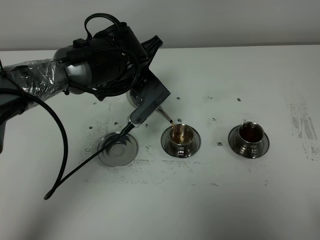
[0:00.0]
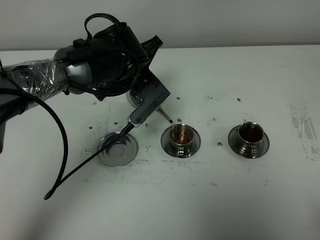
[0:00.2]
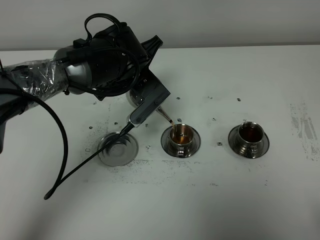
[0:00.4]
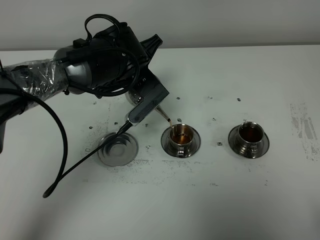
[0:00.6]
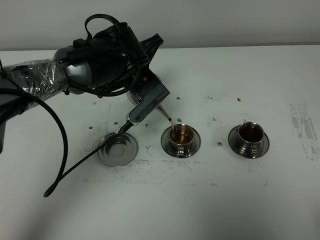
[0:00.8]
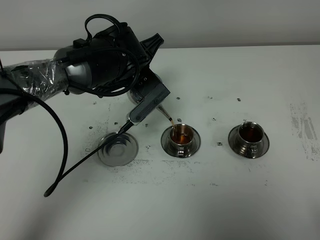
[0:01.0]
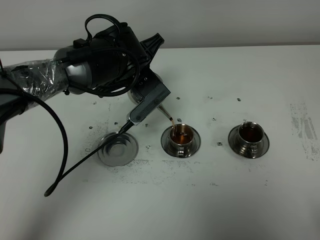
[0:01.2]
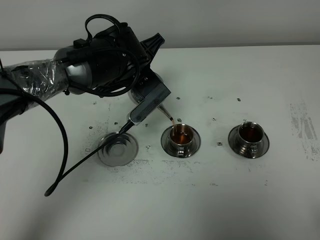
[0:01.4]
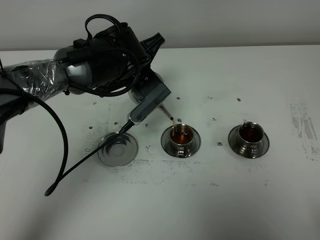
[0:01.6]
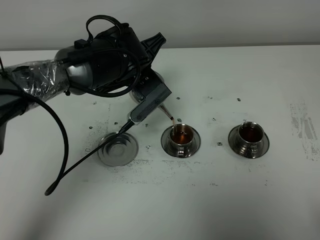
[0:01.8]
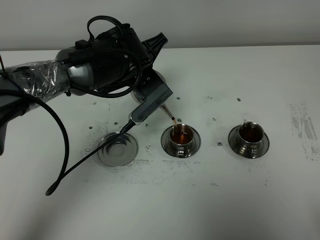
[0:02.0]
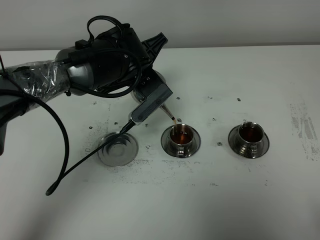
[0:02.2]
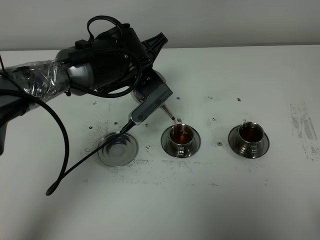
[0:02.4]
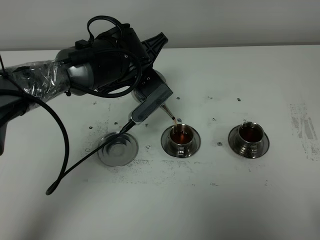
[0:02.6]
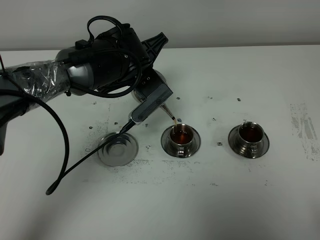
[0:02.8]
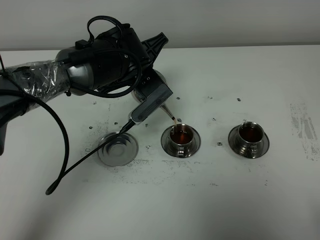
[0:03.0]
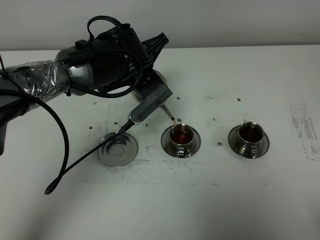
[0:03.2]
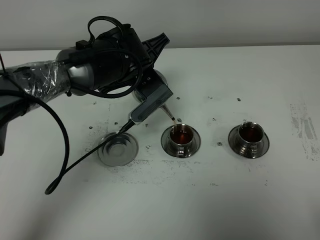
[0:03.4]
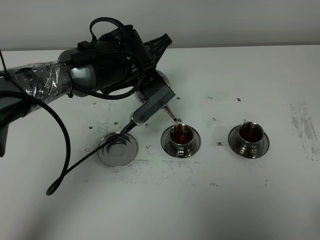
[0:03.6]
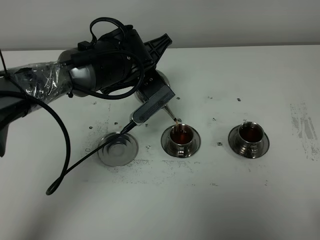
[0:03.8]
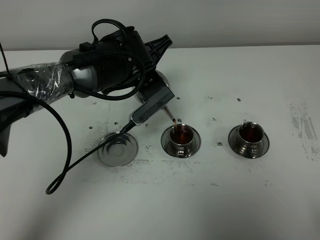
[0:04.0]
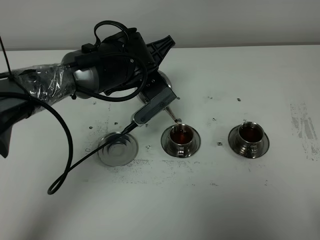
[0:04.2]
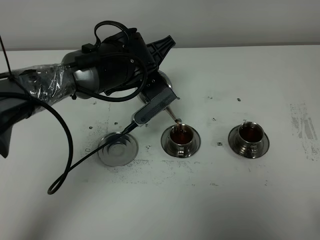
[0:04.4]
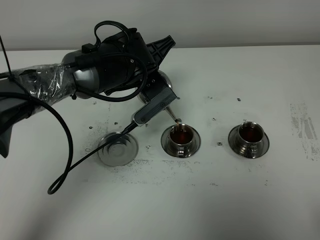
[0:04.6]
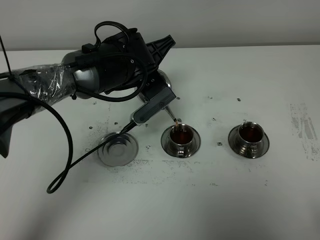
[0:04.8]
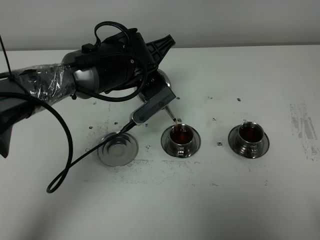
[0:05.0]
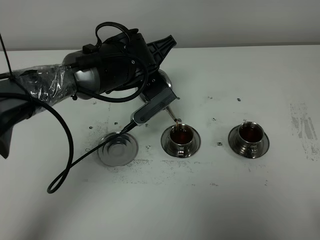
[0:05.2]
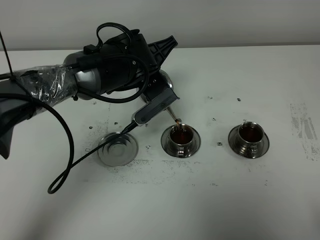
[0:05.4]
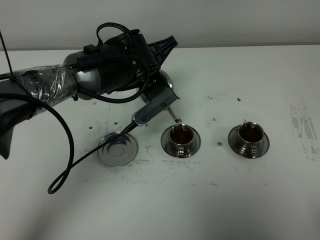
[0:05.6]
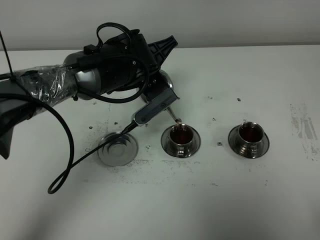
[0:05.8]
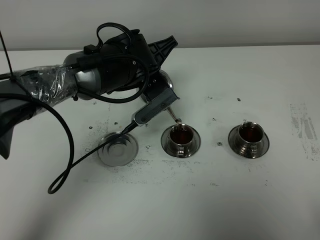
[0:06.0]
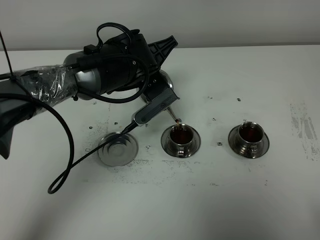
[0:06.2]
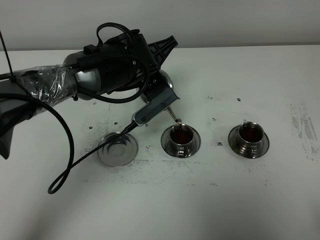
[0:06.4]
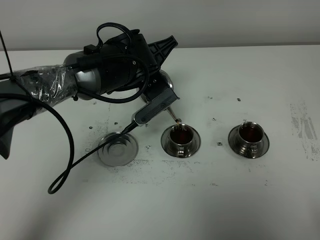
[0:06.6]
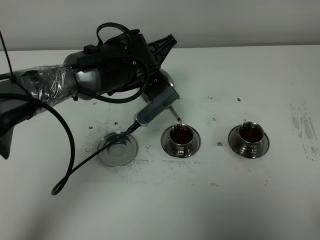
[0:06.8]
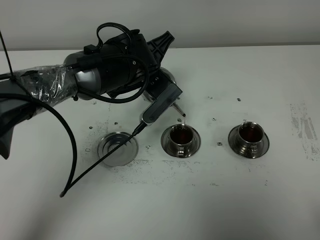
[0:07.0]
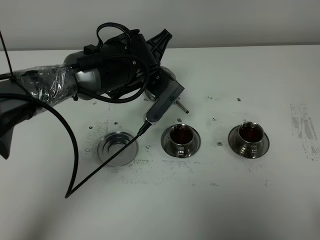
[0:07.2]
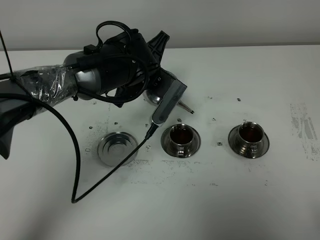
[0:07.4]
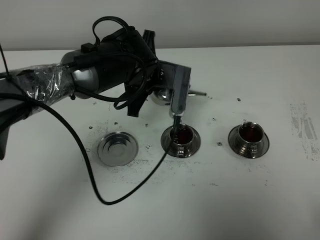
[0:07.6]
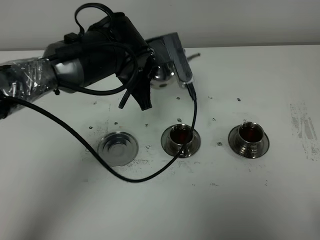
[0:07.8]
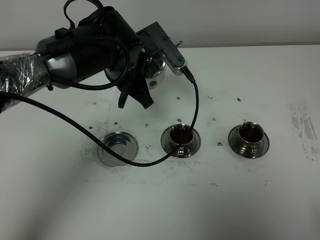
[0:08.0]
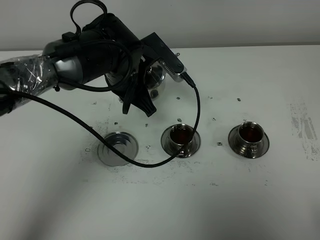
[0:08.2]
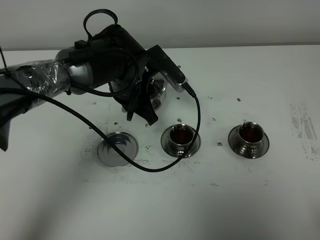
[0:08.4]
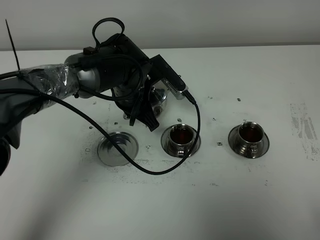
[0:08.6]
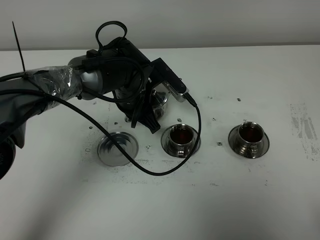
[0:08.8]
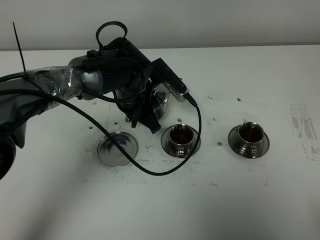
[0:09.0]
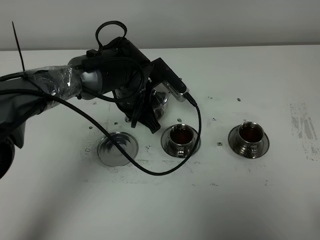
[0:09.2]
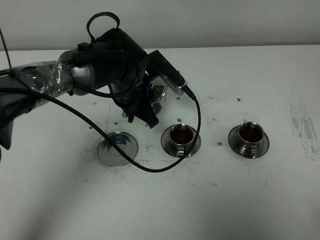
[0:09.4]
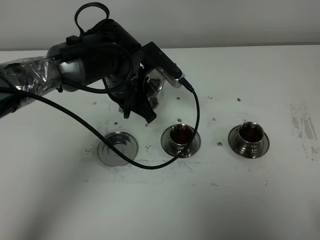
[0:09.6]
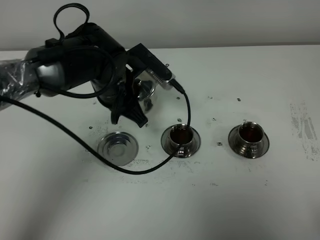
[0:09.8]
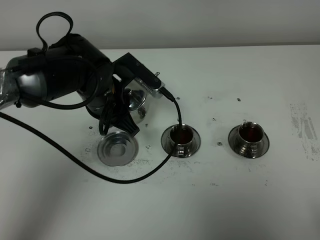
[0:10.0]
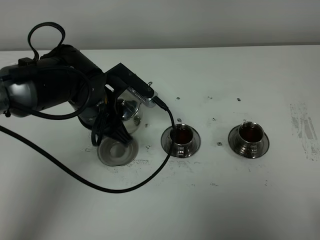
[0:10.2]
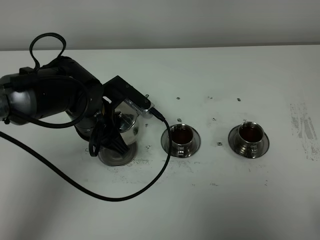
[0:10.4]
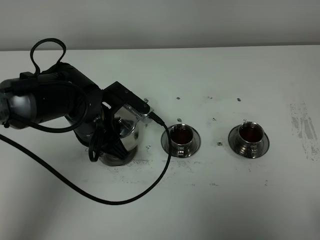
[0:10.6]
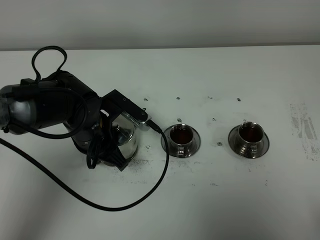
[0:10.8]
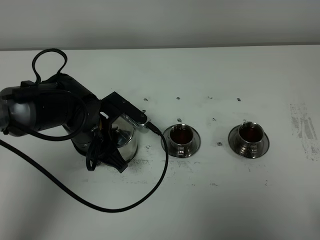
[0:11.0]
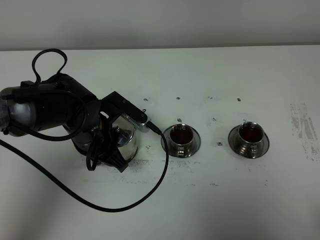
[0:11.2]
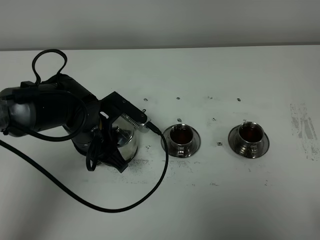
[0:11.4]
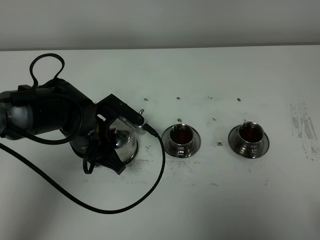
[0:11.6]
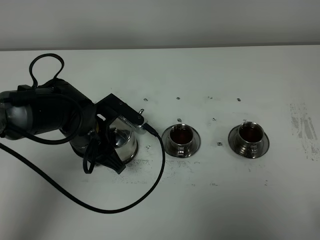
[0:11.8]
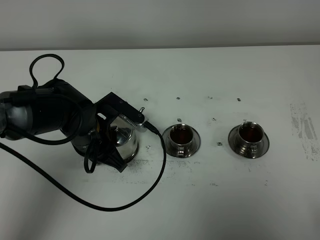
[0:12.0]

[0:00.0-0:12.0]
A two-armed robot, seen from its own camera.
Task of the whole recording: grasp the stainless steel teapot and pour the tea into the two stainless steel teacups one by one, put the stainless steel teapot back in its original place.
Step, 0:00.0 to 0:07.4: Pour tea into the teacup with the left gripper.
0:00.0 to 0:03.0: The two grippers keep their place.
0:03.0 to 0:04.4: Both grippers stay about where they are.
0:04.4 to 0:06.0: Both grippers stay about where they are.
0:07.6 to 0:09.0: The left gripper shifts some 5 cm downward.
0:09.0 to 0:10.4: The left gripper shifts roughly 10 cm backward and to the left.
0:10.4 to 0:12.0: There are only small adjustments of the grippers.

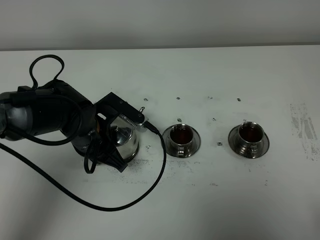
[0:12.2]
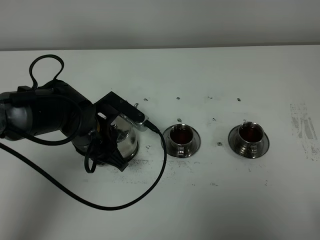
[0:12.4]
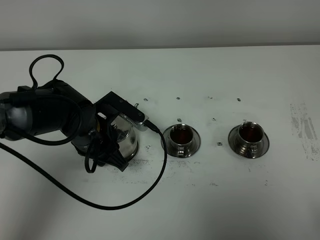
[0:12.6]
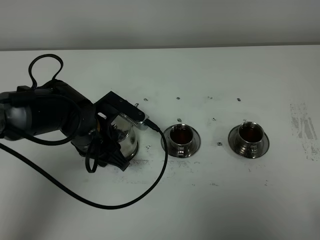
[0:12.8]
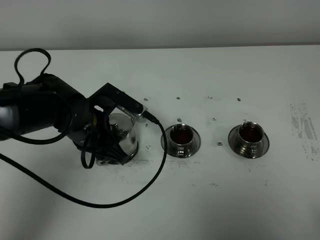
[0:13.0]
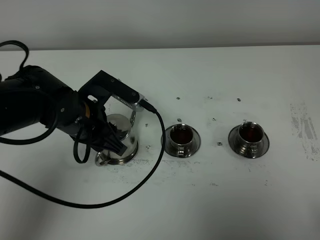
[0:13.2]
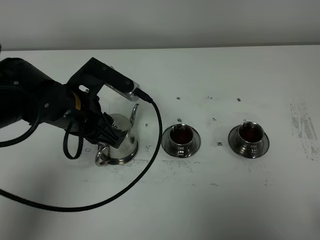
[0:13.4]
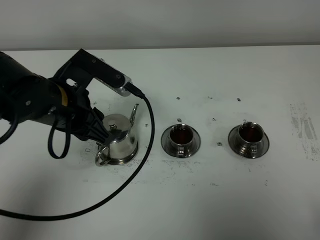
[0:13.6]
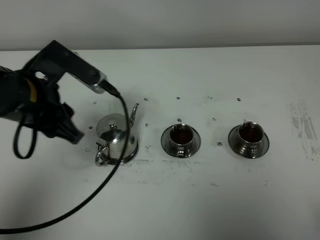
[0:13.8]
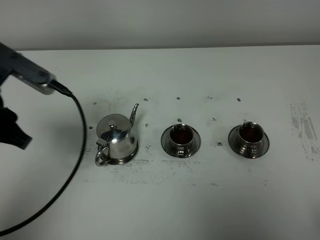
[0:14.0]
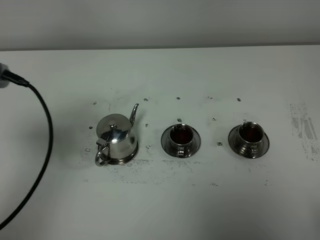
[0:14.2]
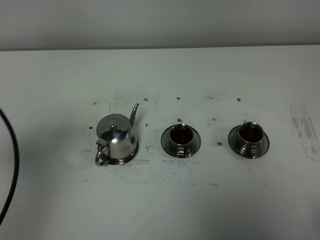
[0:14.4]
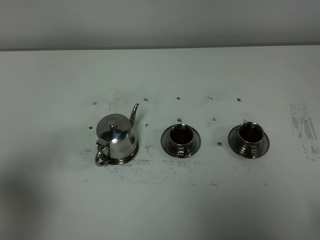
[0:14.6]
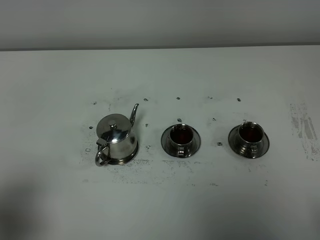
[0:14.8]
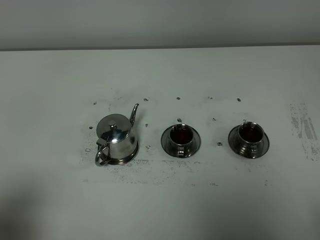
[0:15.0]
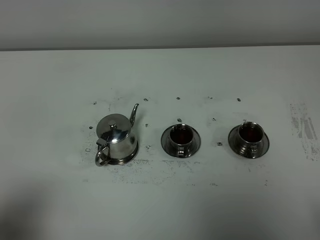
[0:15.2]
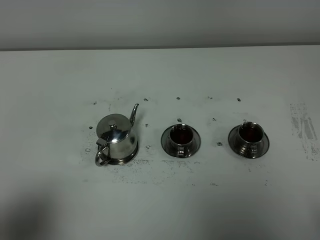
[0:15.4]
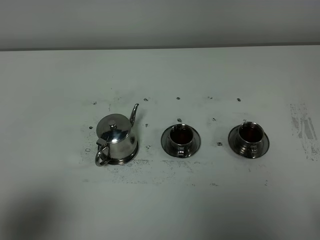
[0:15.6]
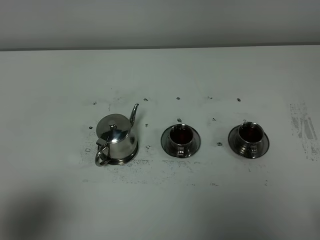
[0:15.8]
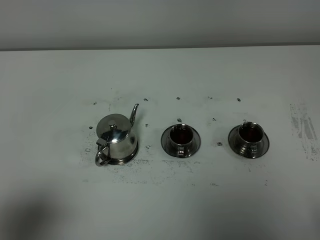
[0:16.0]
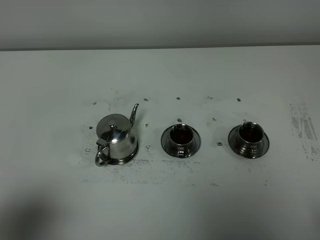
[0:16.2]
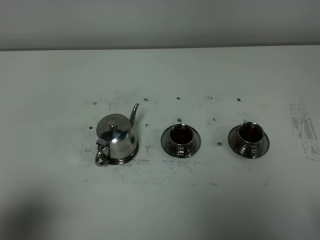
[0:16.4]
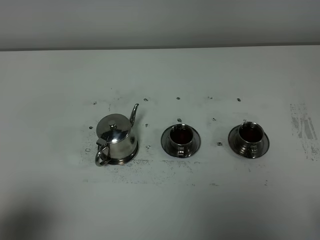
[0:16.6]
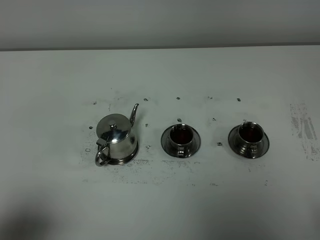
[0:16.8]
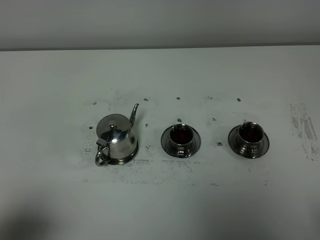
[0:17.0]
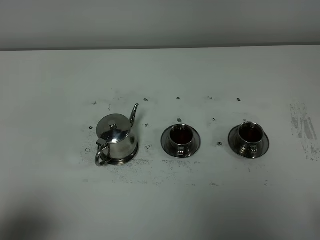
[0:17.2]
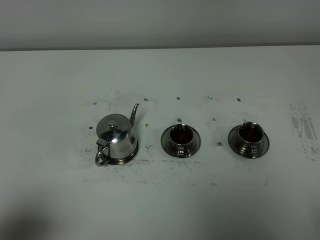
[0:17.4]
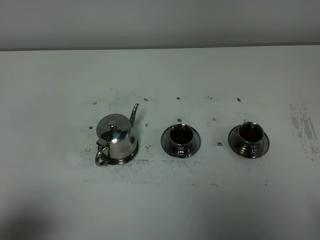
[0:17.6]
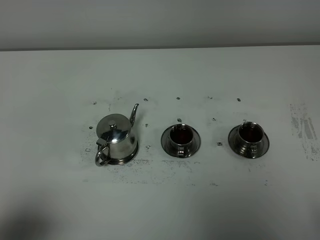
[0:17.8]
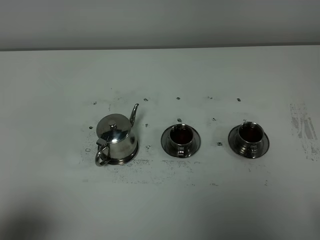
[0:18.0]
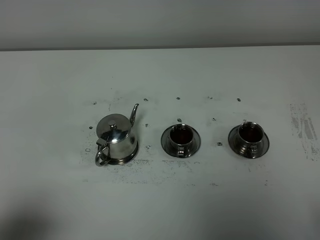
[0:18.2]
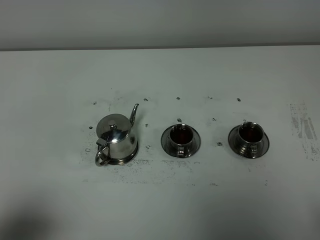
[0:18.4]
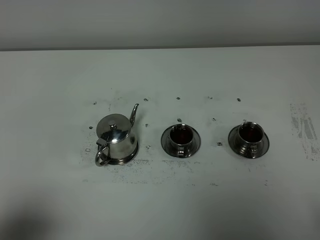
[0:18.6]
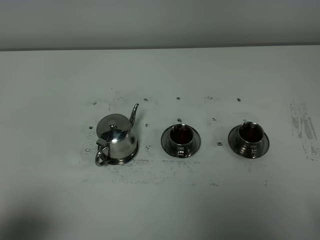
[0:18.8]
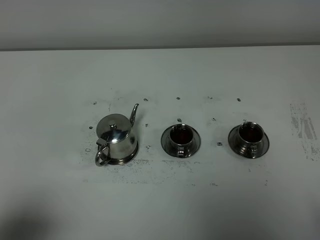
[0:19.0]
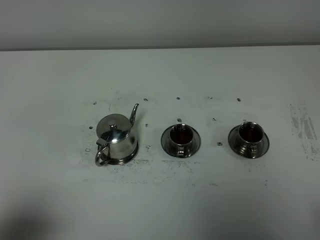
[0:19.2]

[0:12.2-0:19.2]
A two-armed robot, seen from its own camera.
Task of the whole recording: grasp the stainless steel teapot and pour the tea into the two stainless steel teacups one by one, put the stainless steel teapot back in its original place.
0:12.2 to 0:13.6: The left gripper travels upward by about 10 cm, and opens its fingers.
0:13.6 to 0:15.0: The left gripper is displaced backward and to the left by approximately 30 cm.
0:17.8 to 0:19.2: Both grippers stay put.
